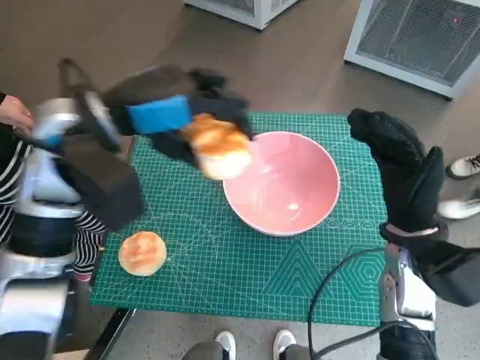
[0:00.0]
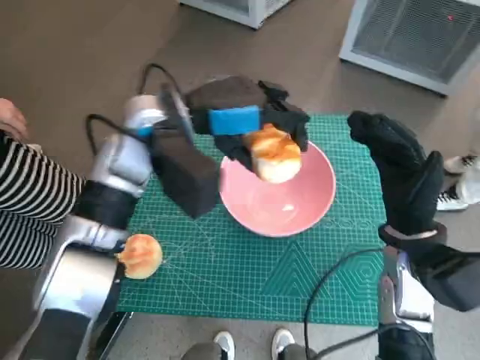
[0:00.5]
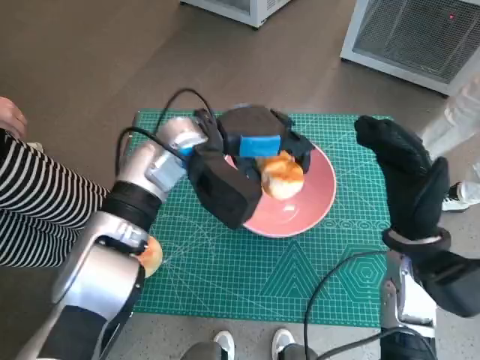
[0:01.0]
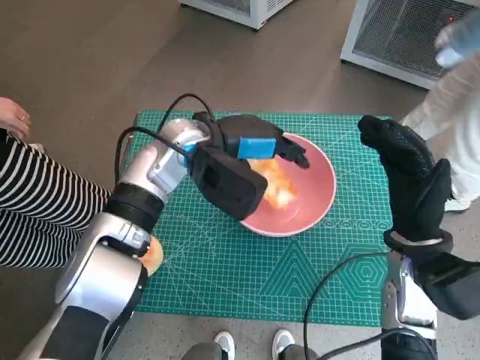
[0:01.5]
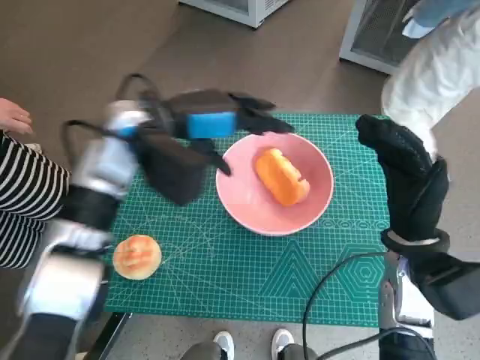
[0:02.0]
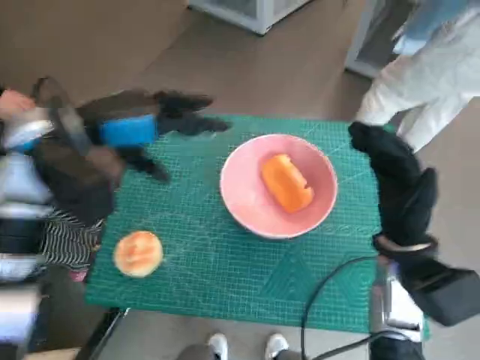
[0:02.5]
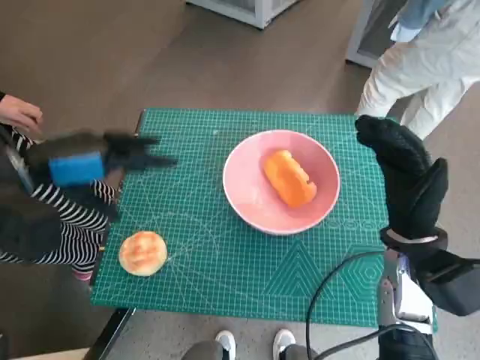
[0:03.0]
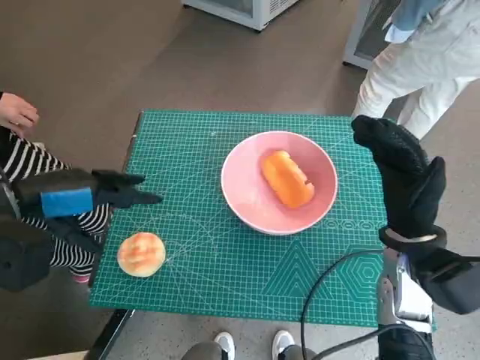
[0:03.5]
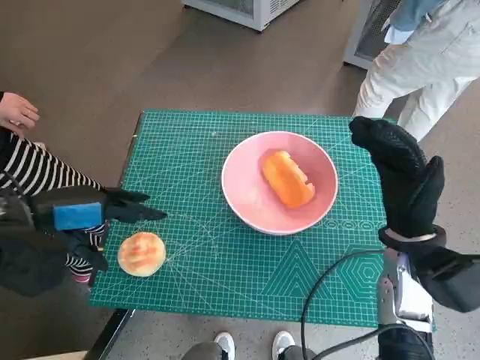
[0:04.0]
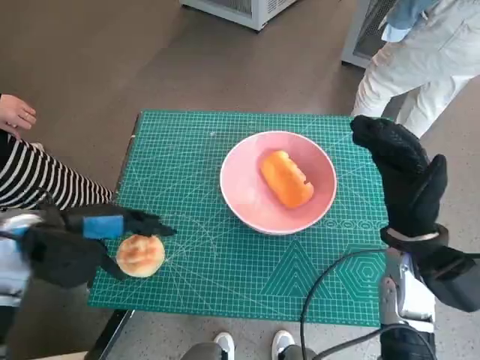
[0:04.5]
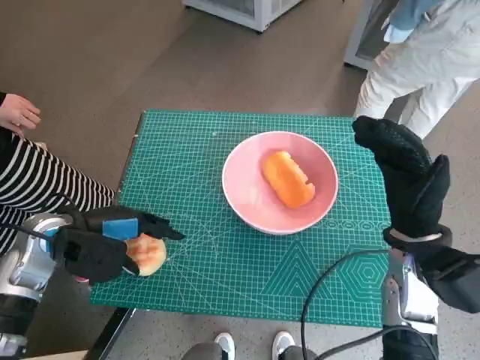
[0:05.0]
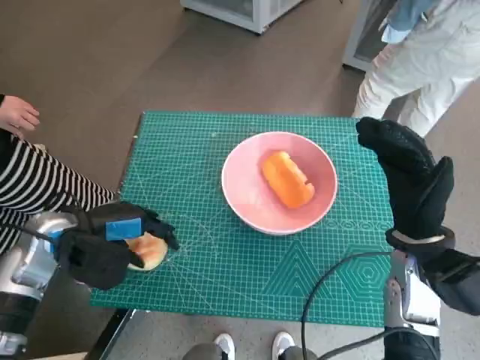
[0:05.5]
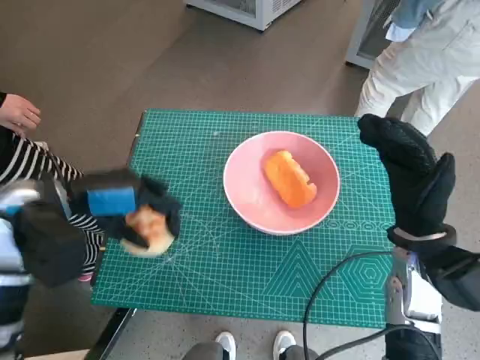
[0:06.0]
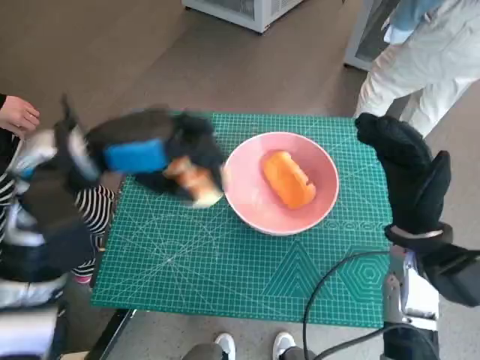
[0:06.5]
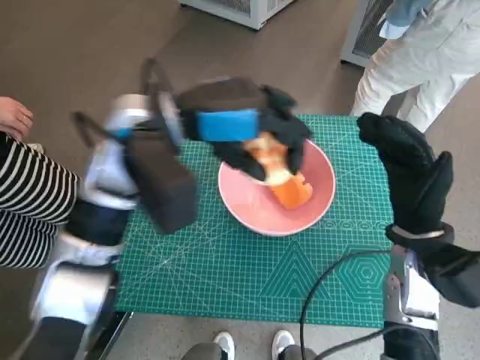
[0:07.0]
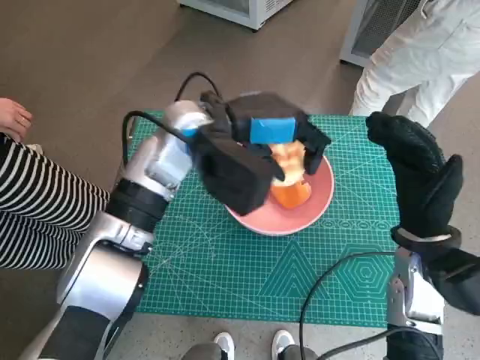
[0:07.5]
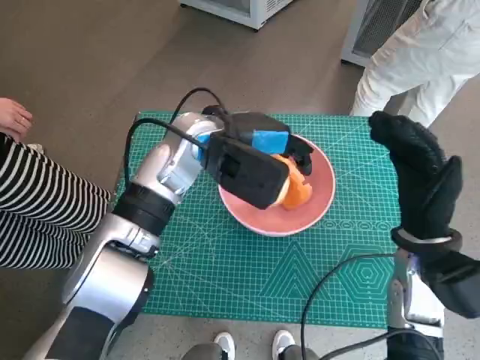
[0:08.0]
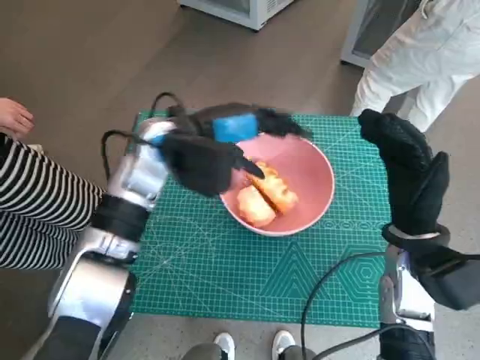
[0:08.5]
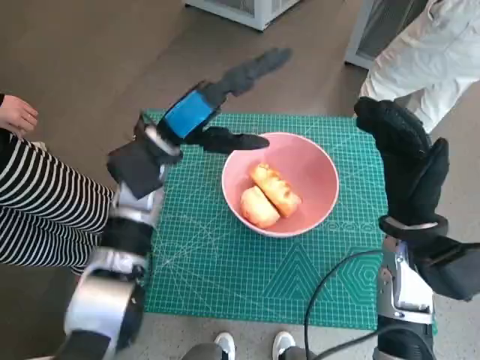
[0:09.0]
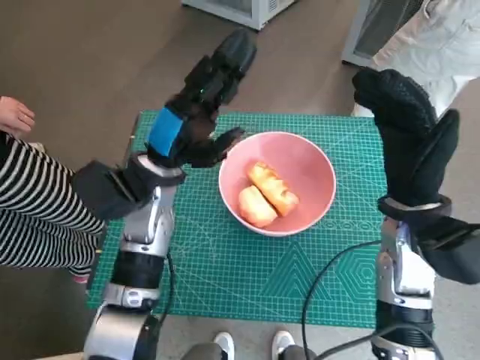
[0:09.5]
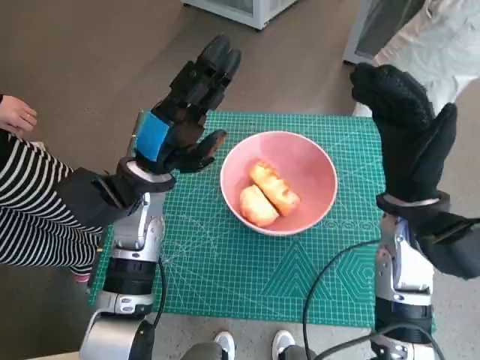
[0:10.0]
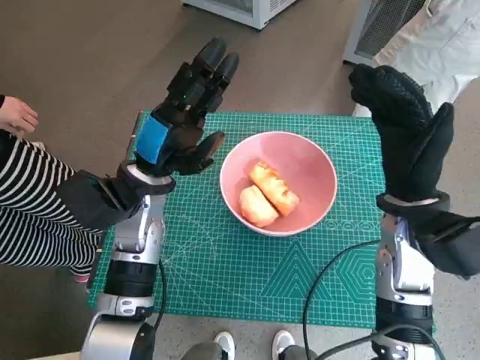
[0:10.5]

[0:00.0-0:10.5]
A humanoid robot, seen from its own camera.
Task of the whole recording: Push the bowl into the center of the table and put the bread into the bowl.
Step, 0:00.0 to 0:02.0: Place the long bread in pink bowl with left hand.
Step, 0:02.5 to 0:05.0: Grasp the round bread with left hand.
Step, 0:06.0 to 0:08.0: Place the round bread in pink bowl with left hand.
0:02.0 to 0:04.0: The left hand shifts approximately 20 cm to the left and backward.
0:04.0 to 0:06.5: The left hand shifts roughly 10 cm to the right.
0:06.5 to 0:08.5: The left hand heads to the right and forward, covering about 10 cm.
0:08.5 to 0:10.5: The left hand heads downward, covering some 5 cm.

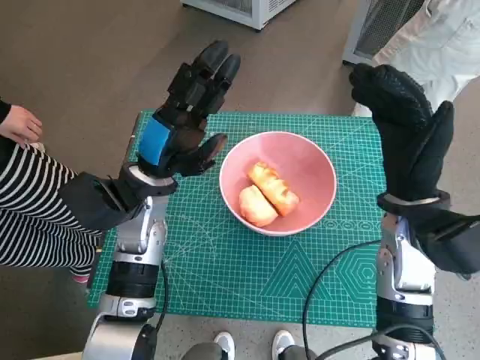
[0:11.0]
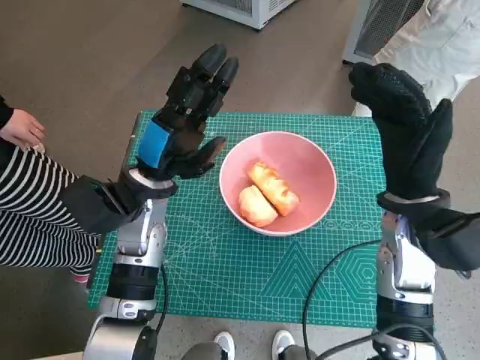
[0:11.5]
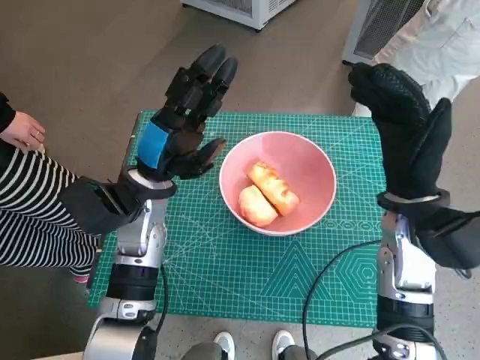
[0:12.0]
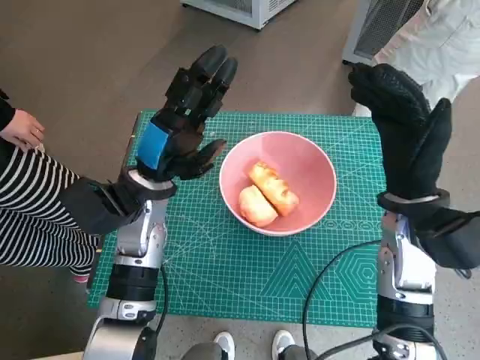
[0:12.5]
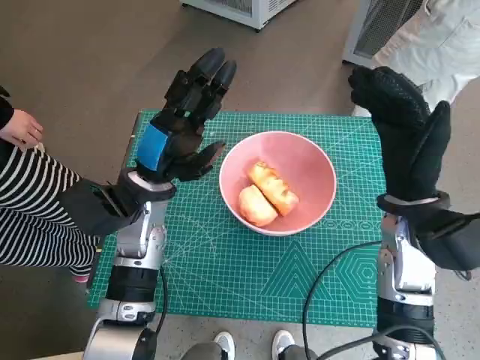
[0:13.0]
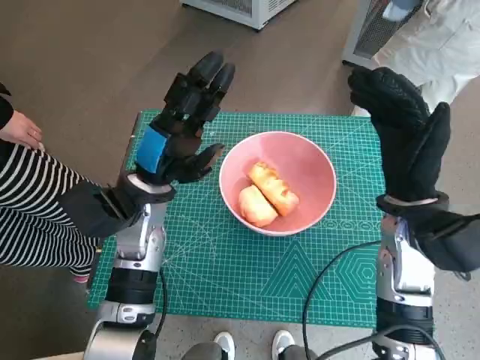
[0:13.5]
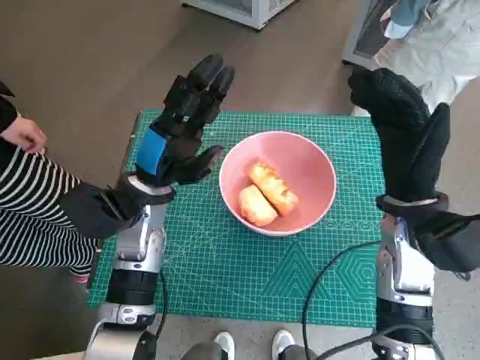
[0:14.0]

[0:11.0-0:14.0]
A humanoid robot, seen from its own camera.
Task of the whole recording: Push the bowl into the center of the table and put the bread into the bowl.
0:11.0 to 0:14.0: Both hands stay put.
